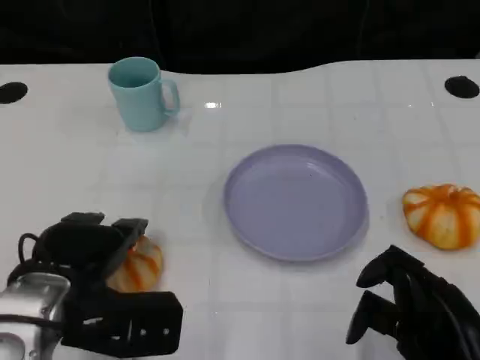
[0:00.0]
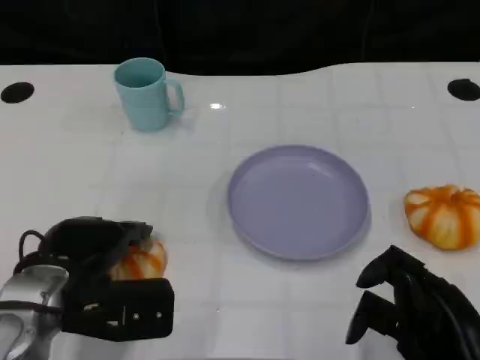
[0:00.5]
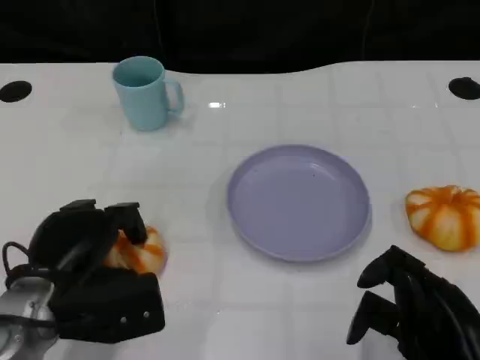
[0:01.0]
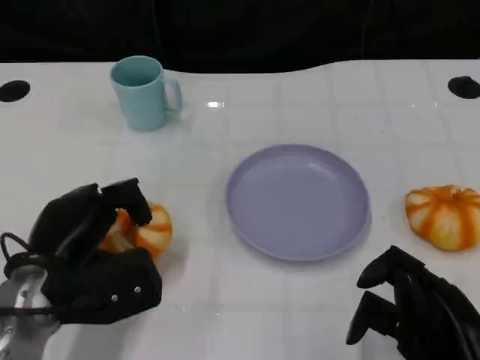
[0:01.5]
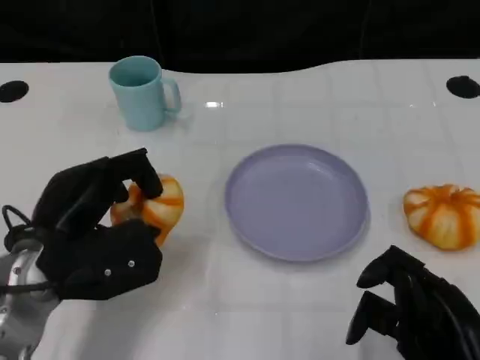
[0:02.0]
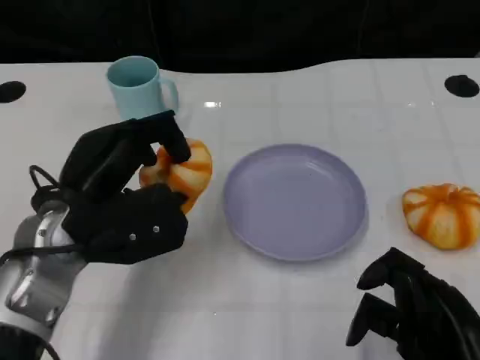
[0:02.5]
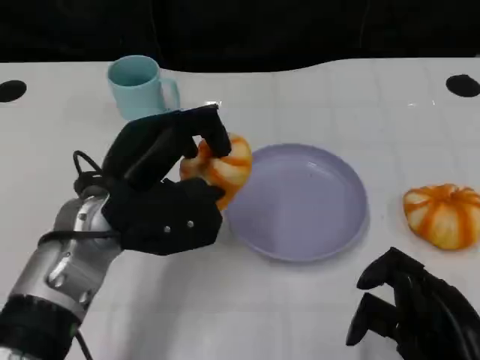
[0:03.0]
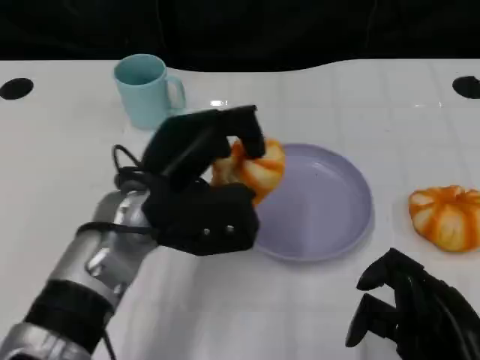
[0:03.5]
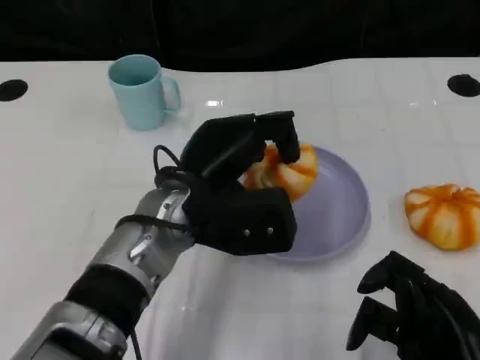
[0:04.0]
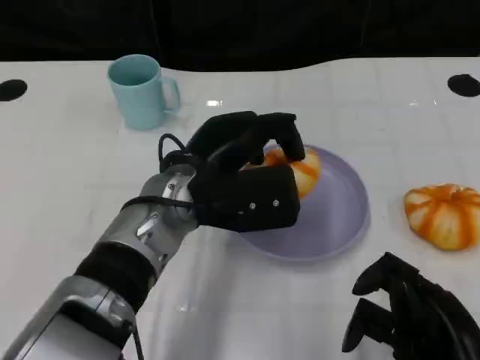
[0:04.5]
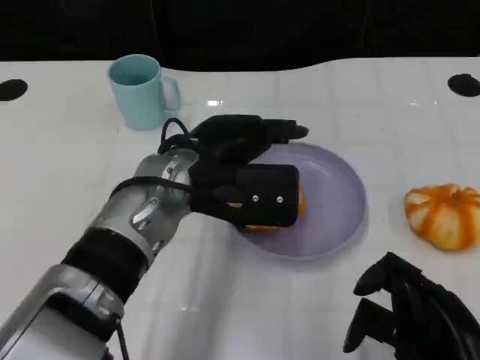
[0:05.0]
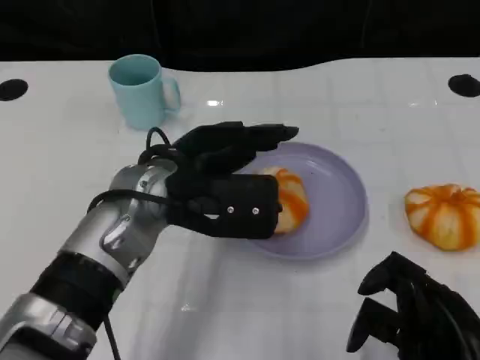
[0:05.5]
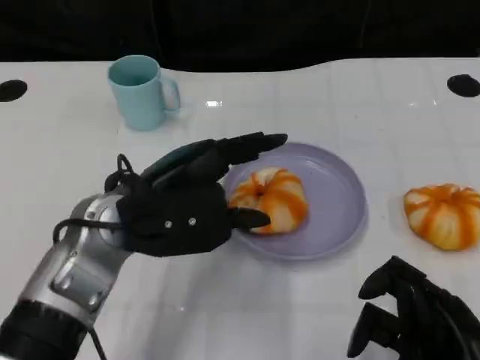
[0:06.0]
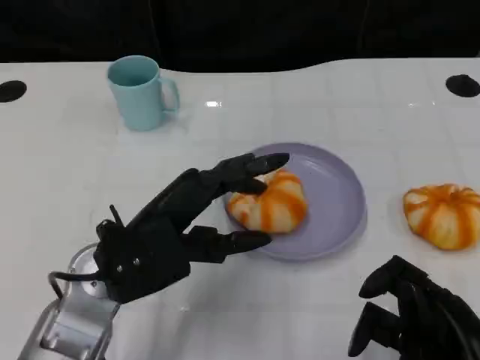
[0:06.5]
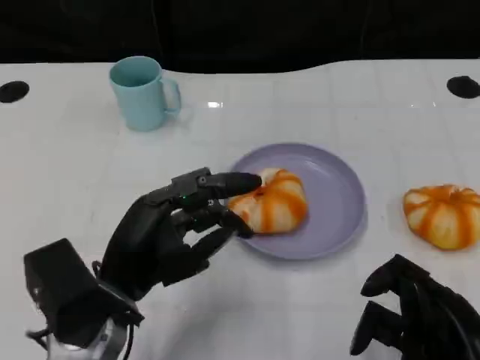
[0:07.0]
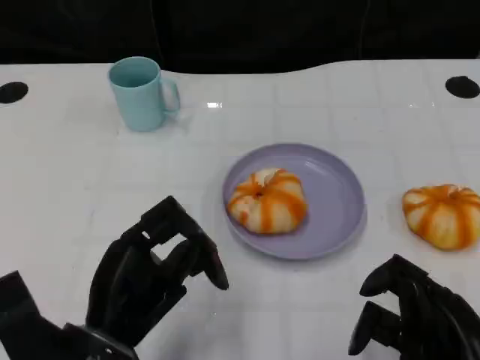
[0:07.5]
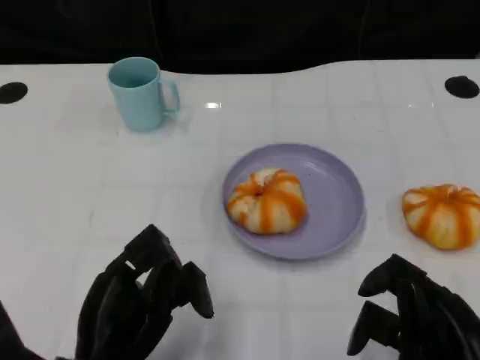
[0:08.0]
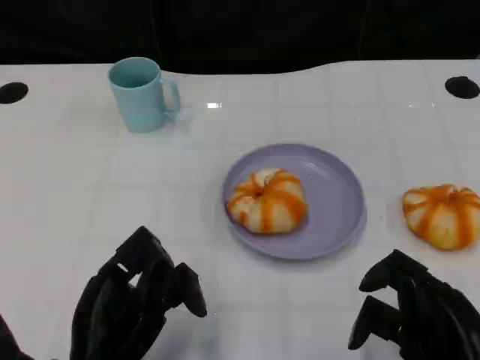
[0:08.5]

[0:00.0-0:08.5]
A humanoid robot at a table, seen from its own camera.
Task of the whole recording: Grasp the bread from the table and place it into the plate.
0:02.0 to 0:04.0: The left hand goes some 15 cm to the right.
0:04.0 to 0:06.5: The left hand heads to the left and backward, covering some 10 cm.
0:06.5 to 0:08.5: The left hand heads backward and downward, covering roughly 10 cm.

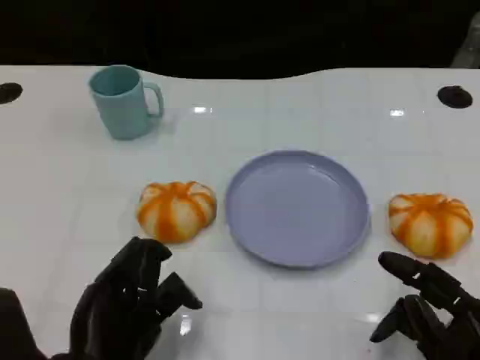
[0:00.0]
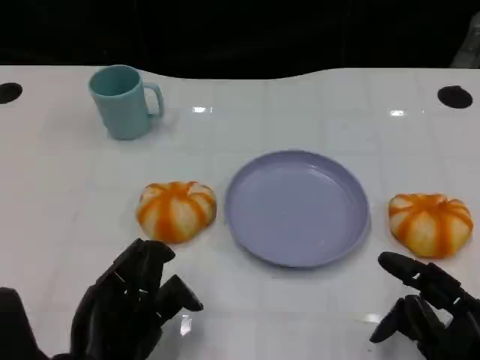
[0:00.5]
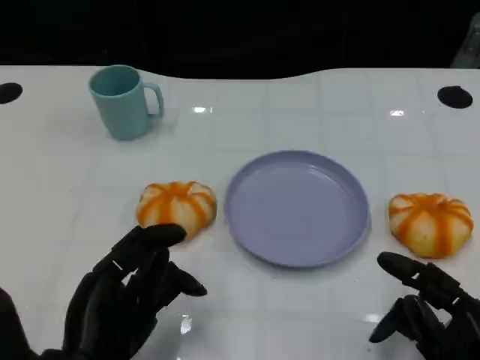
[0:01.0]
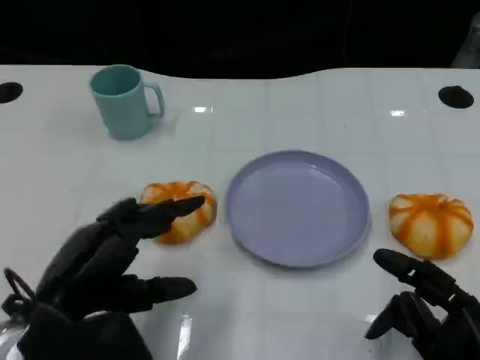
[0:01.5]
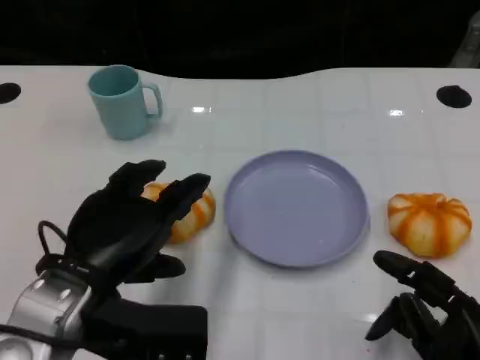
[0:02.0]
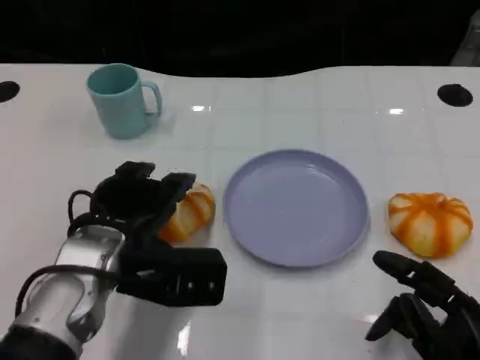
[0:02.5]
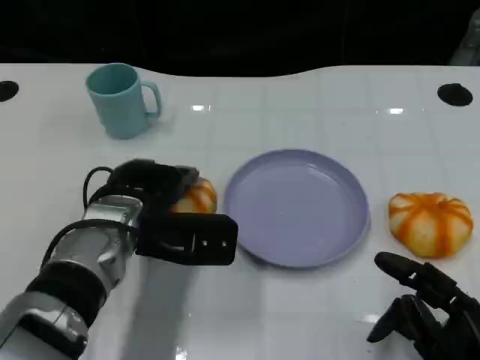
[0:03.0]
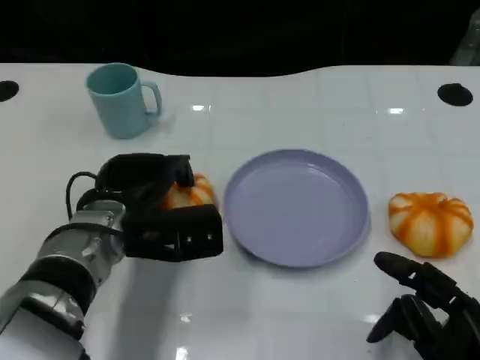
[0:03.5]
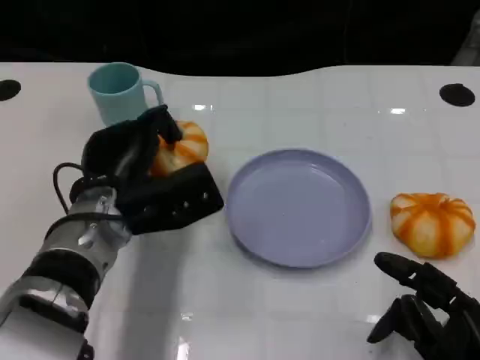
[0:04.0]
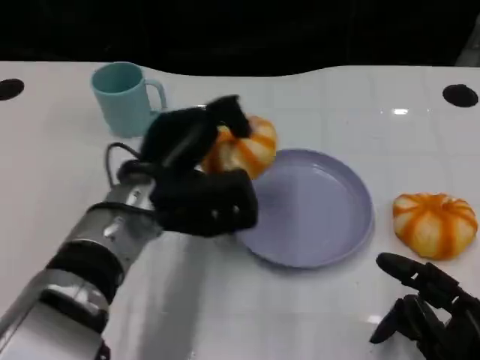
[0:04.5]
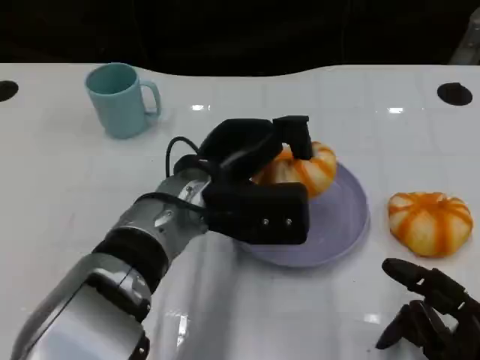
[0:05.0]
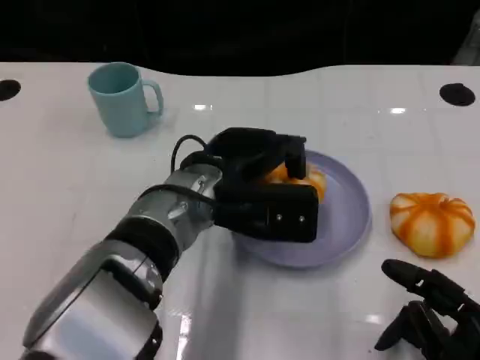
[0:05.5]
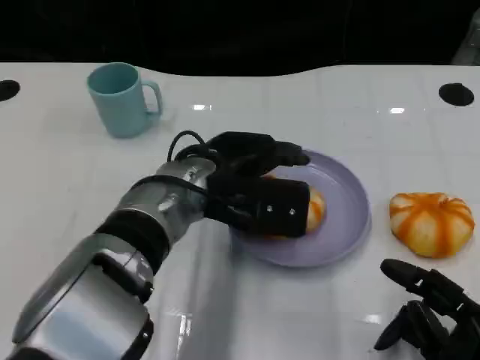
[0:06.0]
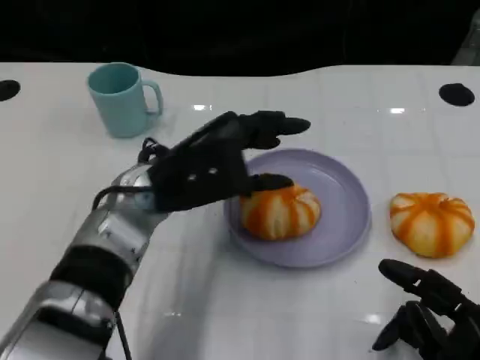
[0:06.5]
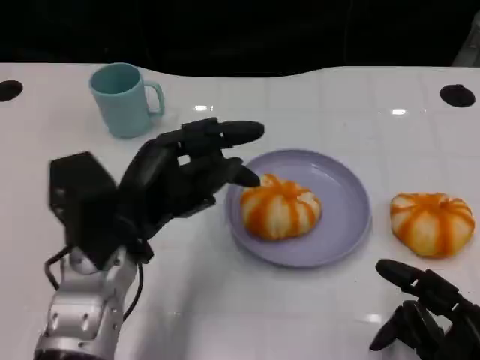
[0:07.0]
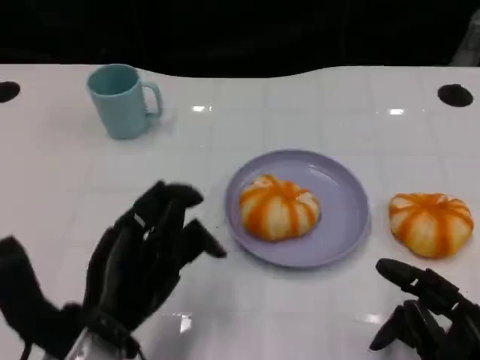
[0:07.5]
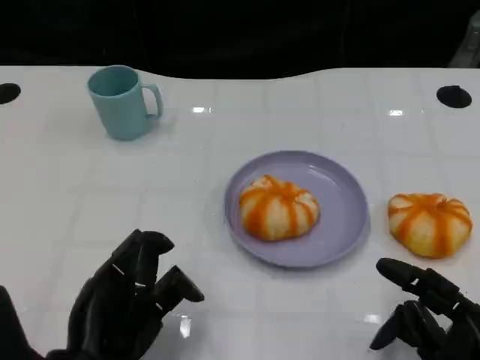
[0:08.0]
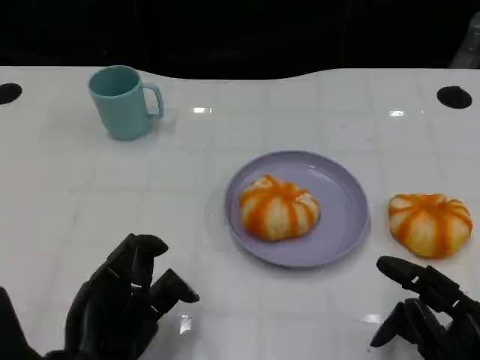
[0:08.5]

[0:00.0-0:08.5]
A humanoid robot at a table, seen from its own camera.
Task of the whole recording: Grasp the bread from the table and place it into the plate.
0:00.0 to 0:02.0: The left hand is displaced upward and forward by roughly 10 cm.
0:02.0 to 0:04.0: The left hand moves forward, some 10 cm.
0:06.5 to 0:08.5: The left hand goes some 20 cm backward, to the left and downward.

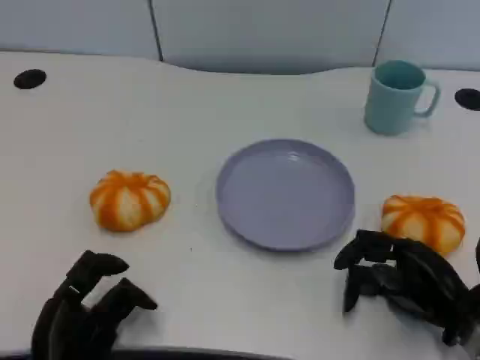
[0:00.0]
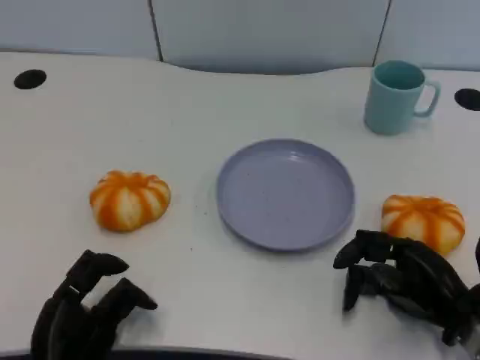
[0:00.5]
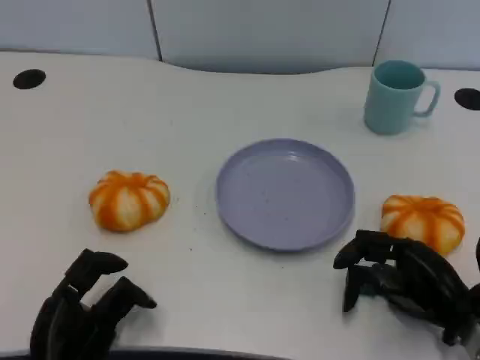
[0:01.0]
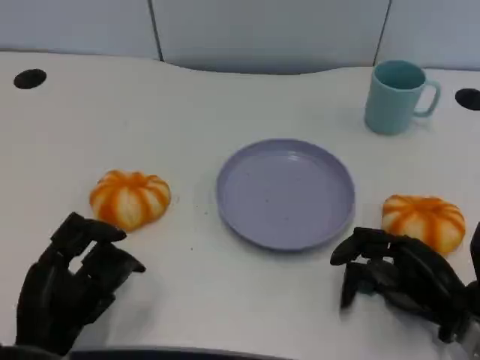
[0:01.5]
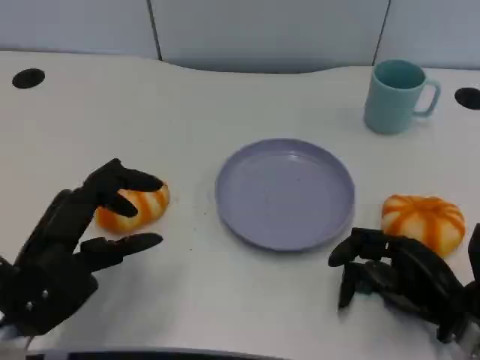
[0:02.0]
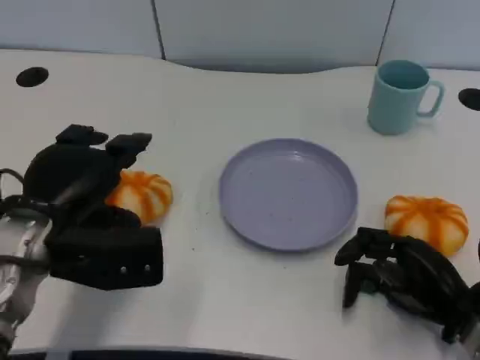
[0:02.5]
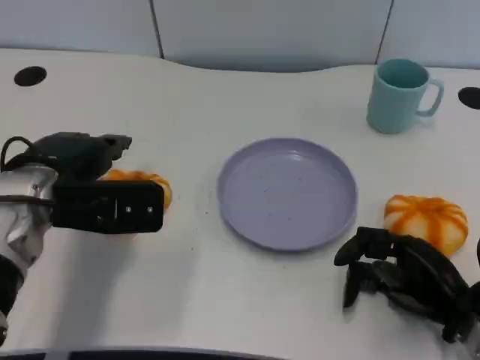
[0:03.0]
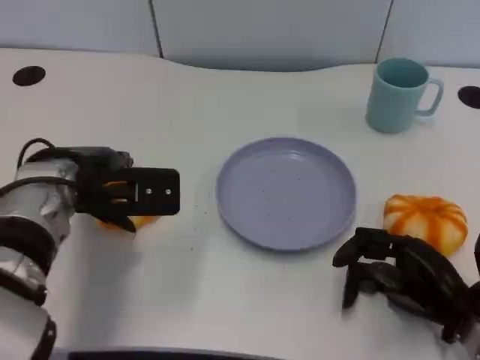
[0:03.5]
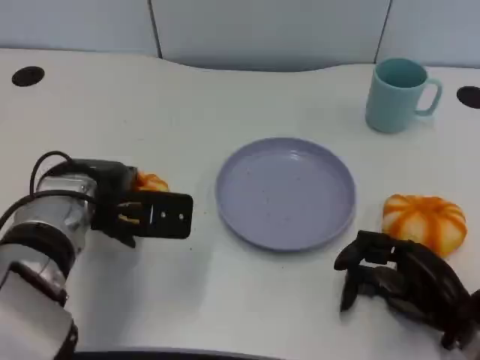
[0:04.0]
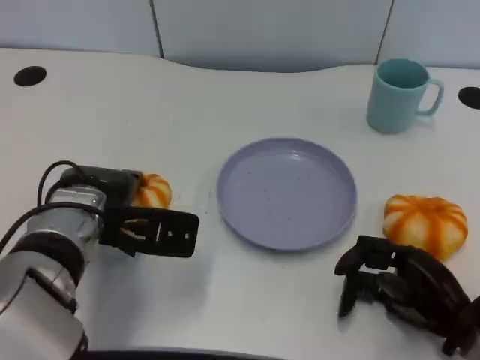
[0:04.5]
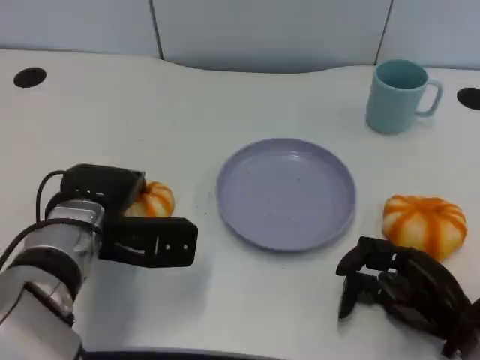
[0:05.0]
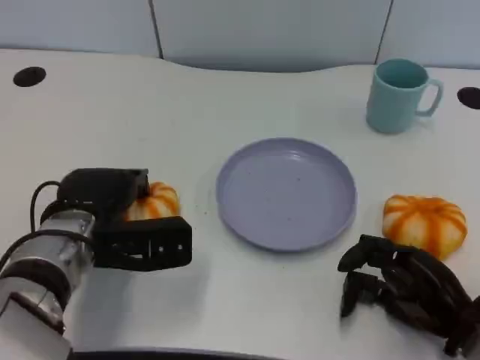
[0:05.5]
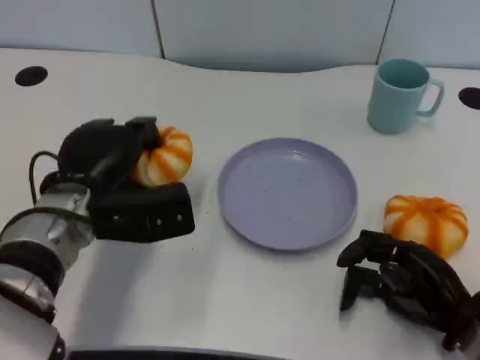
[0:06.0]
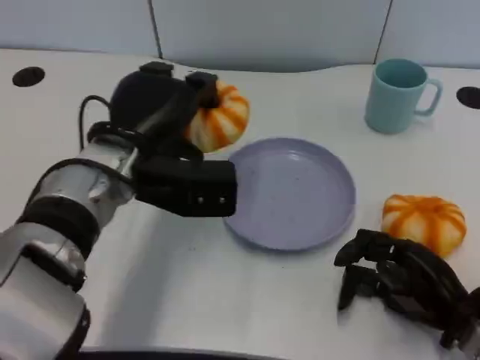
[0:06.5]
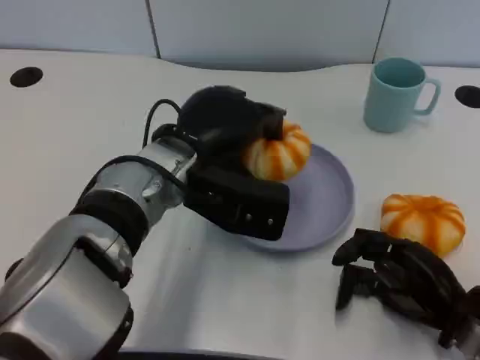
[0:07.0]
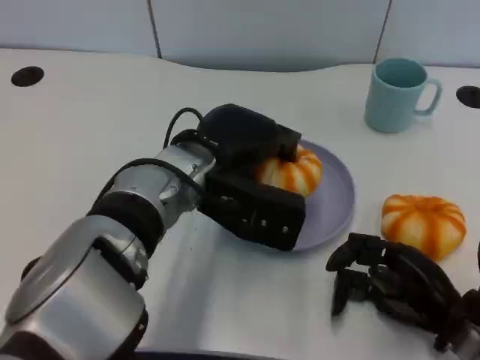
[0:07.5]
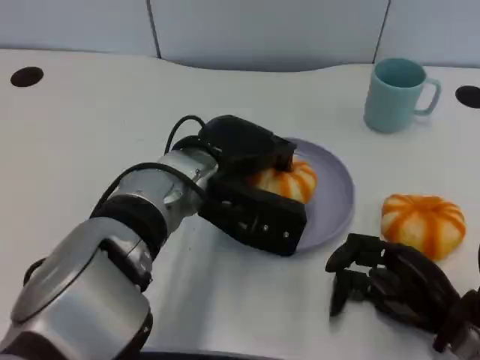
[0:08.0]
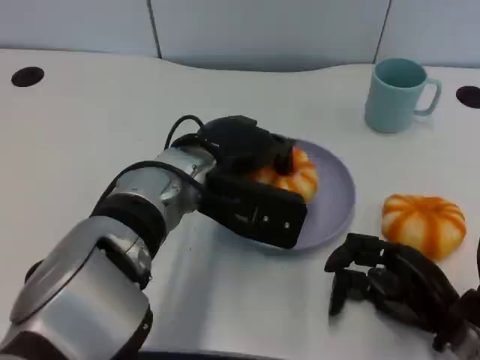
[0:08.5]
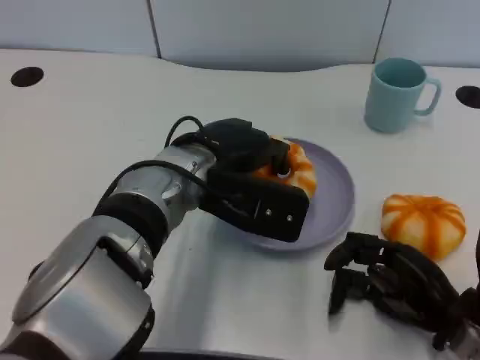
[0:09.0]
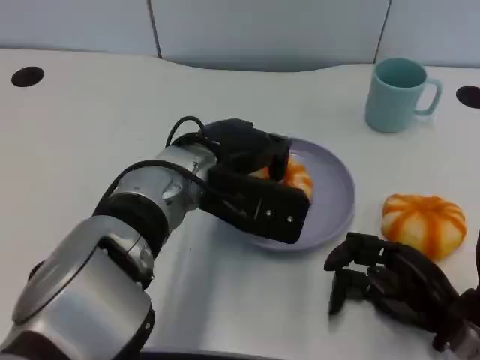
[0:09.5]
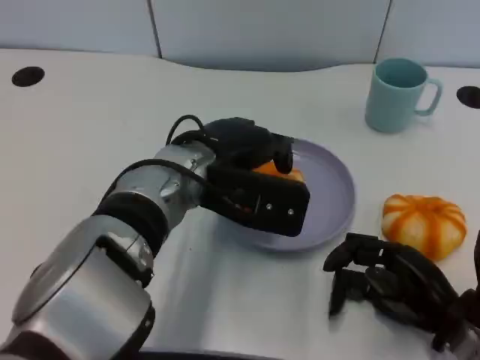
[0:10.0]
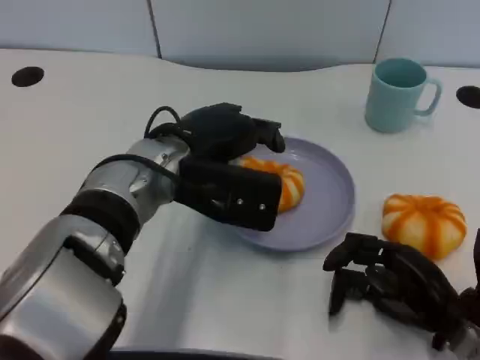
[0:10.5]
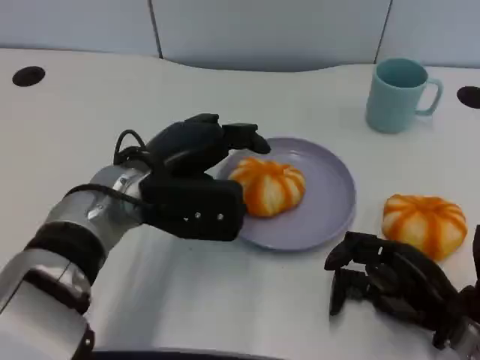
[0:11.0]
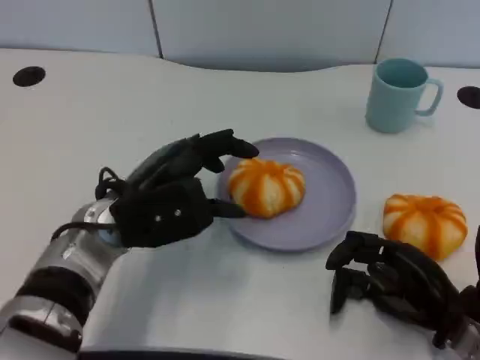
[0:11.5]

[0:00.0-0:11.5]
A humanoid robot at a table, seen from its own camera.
Task of the whole recording: Grasp the bread from the table and place it into the plate.
0:00.0 to 0:02.0: The left hand heads upward and forward, covering about 10 cm.
0:02.0 to 0:04.0: The left hand goes approximately 10 cm forward and to the right.
0:06.0 to 0:07.5: The left hand shifts roughly 10 cm to the right.
0:07.5 to 0:09.5: The hands make only small movements.
0:09.5 to 0:11.5: The left hand heads to the left, covering some 10 cm.
